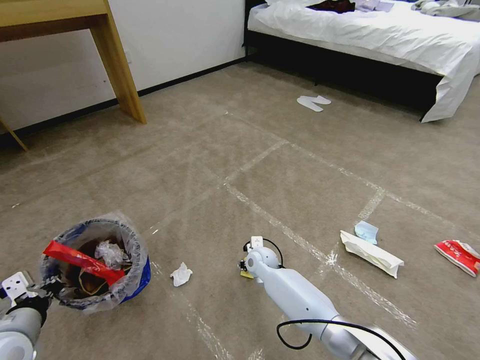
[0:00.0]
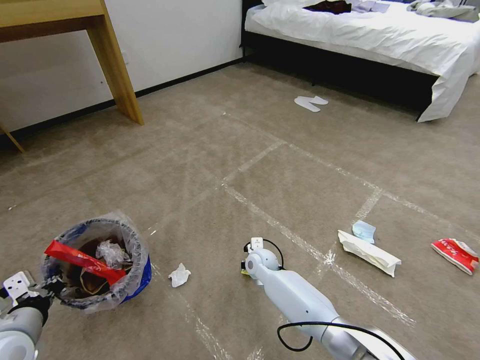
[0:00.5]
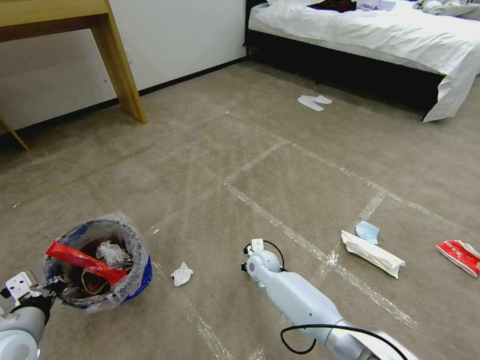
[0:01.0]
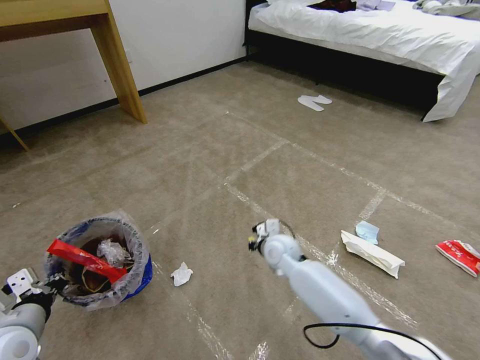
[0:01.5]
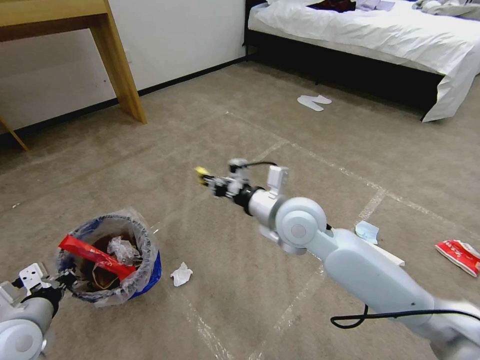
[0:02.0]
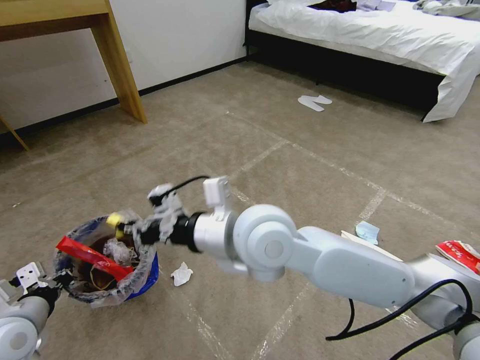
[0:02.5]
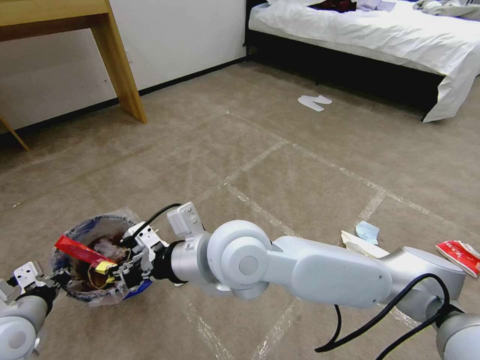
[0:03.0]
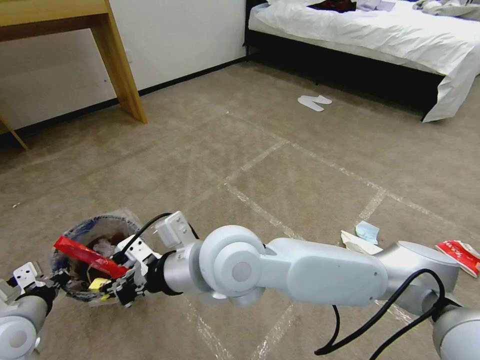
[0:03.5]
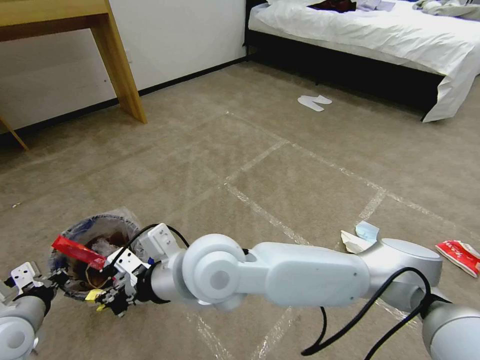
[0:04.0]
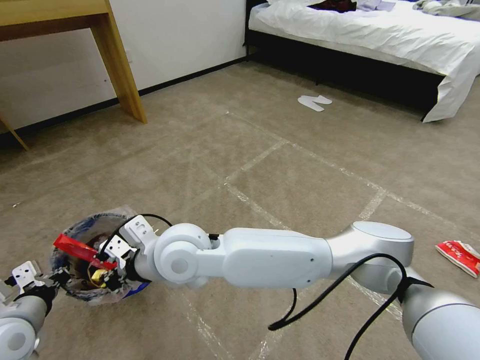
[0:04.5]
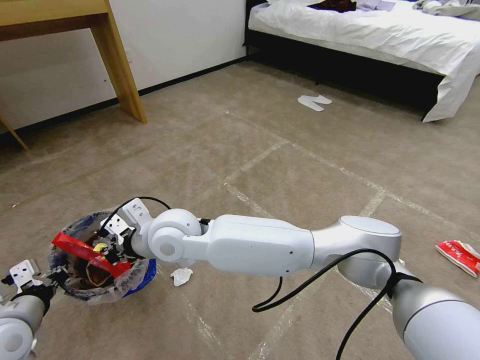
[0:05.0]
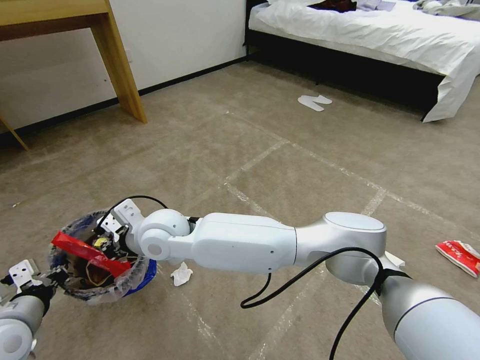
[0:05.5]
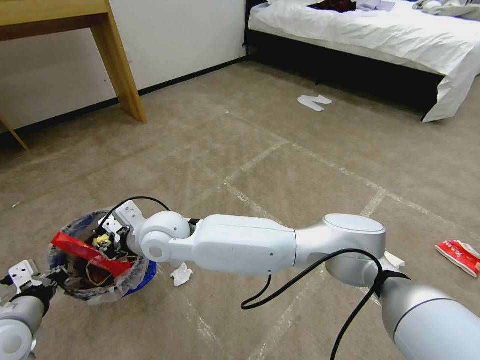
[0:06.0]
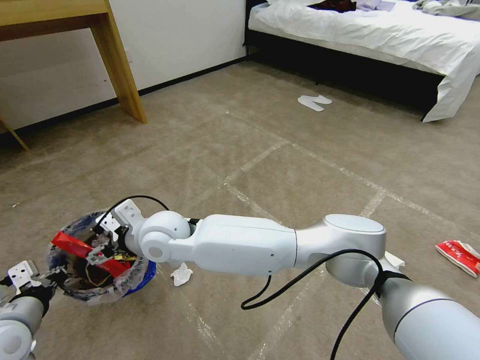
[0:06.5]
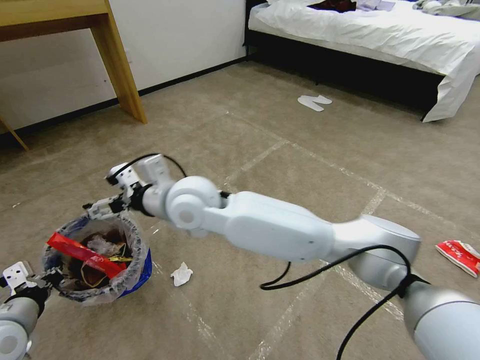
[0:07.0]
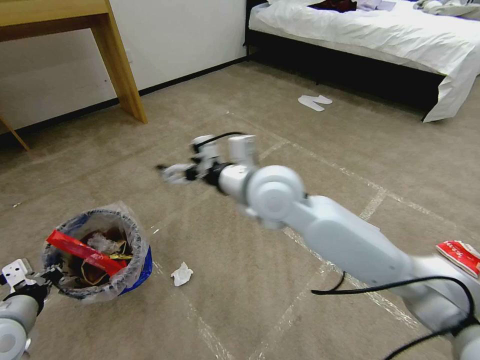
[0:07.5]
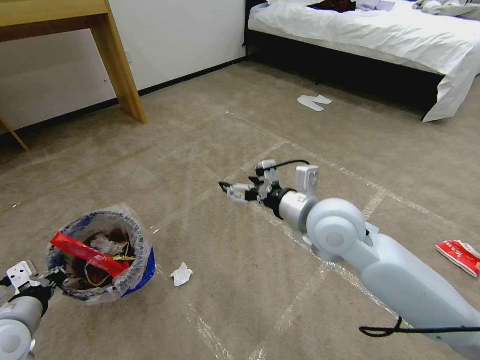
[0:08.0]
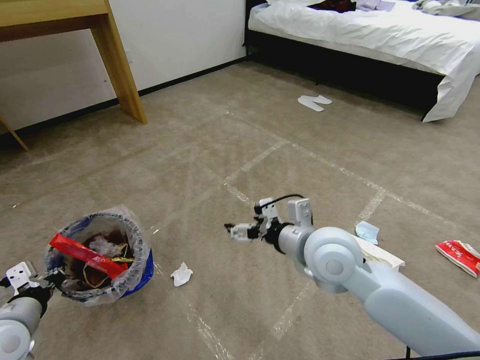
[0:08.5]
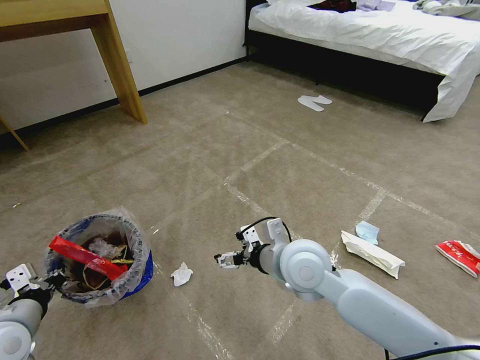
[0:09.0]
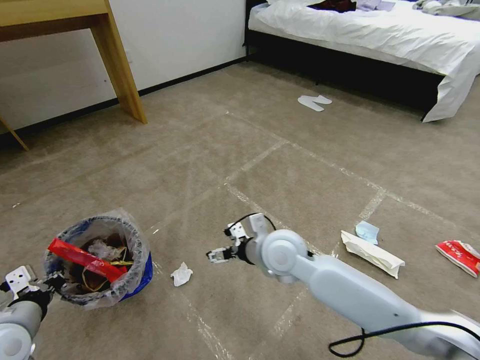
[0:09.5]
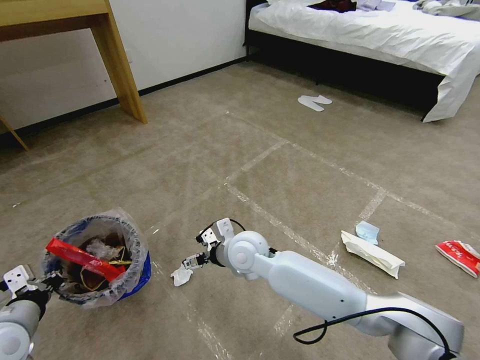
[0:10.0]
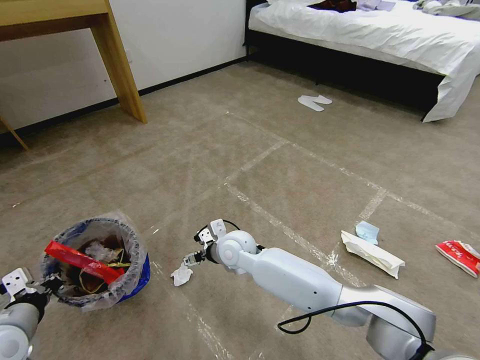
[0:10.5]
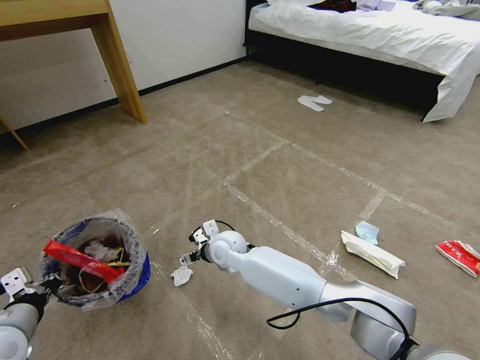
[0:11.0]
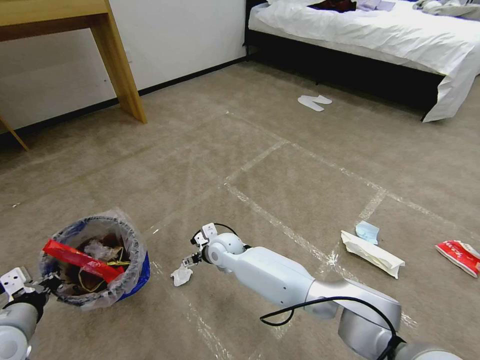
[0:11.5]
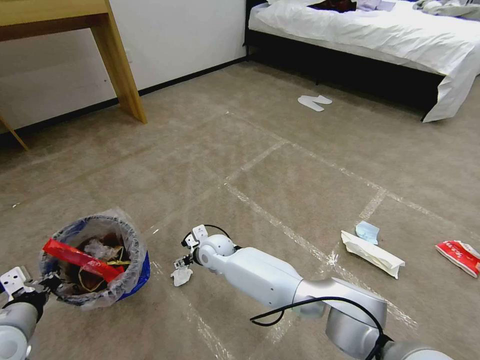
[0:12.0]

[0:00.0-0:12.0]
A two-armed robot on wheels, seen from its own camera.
Task of the whole recording: Pick up the trash bin and place the garbage on the floor into it.
0.0 to 2.0 s: The right gripper moves upward, roughly 30 cm, and closes its fingers.
2.0 to 4.0 s: The right gripper goes some 20 cm to the left and backward.
4.0 to 6.0 s: The right gripper goes about 15 cm to the left, forward and downward, and opens.
6.0 to 8.0 s: The right gripper goes about 30 cm to the right, and opens.
8.0 to 10.0 s: The right gripper goes approximately 20 cm downward and to the left.
10.0 to 12.0 s: The right gripper travels downward, to the left and forward by approximately 15 cm.

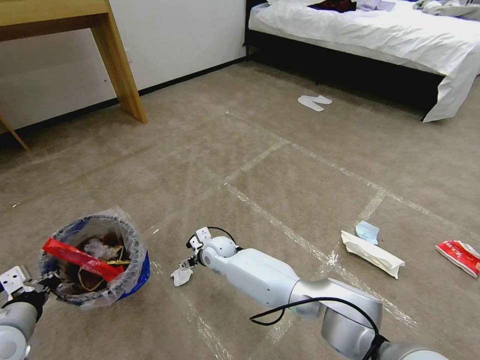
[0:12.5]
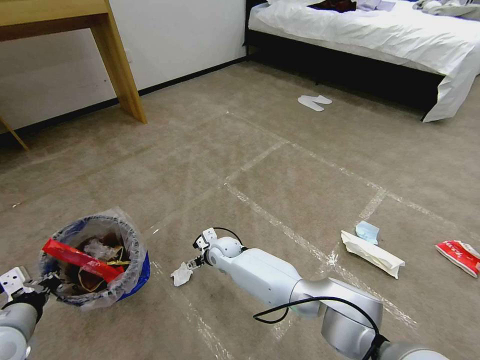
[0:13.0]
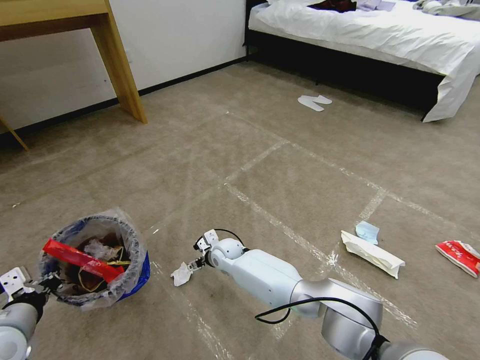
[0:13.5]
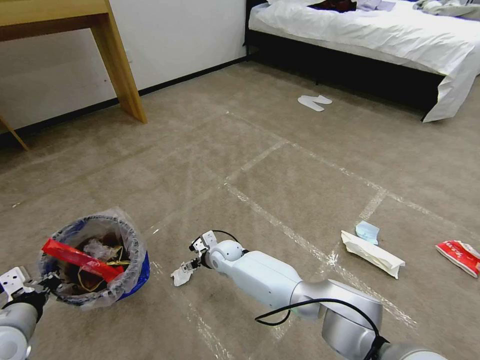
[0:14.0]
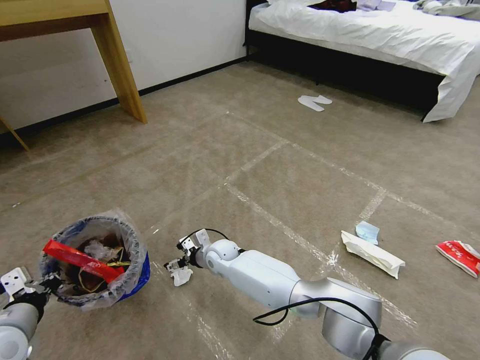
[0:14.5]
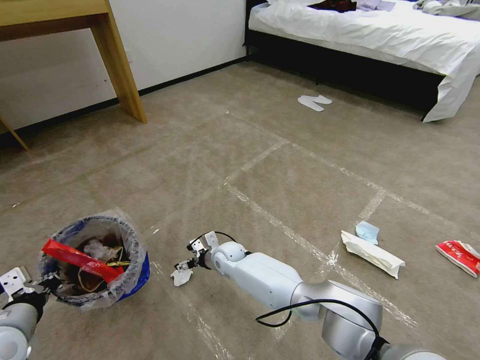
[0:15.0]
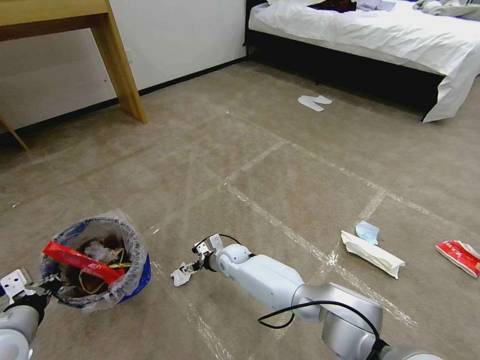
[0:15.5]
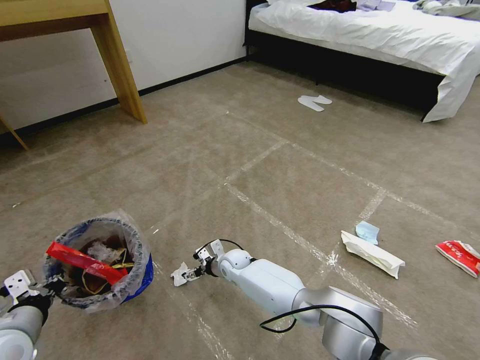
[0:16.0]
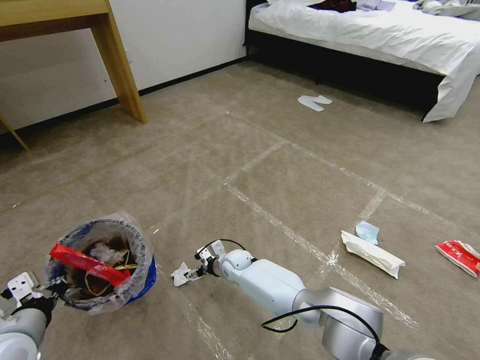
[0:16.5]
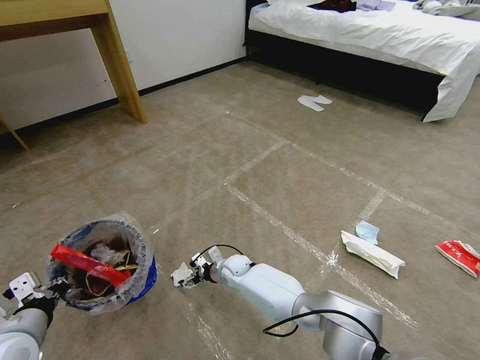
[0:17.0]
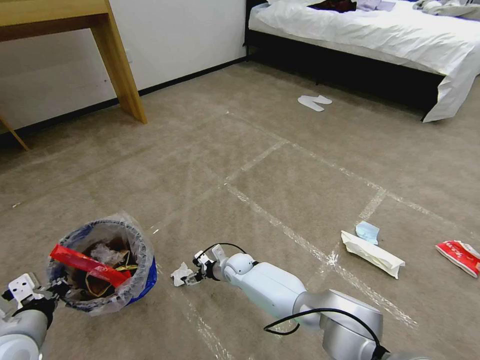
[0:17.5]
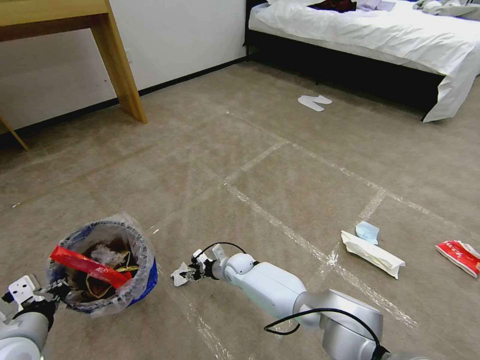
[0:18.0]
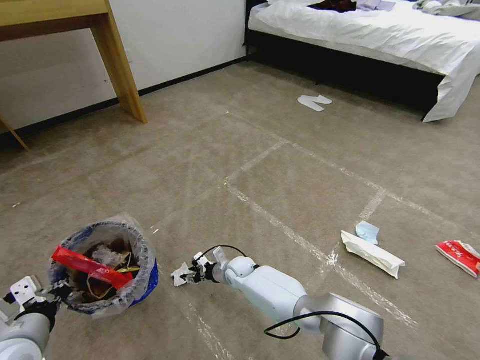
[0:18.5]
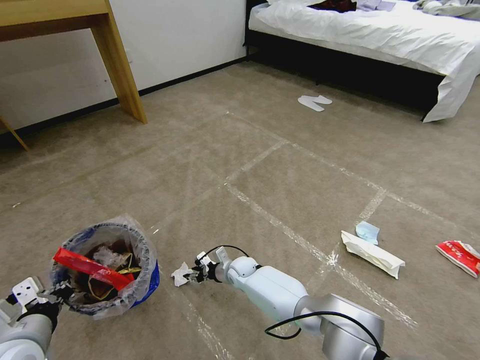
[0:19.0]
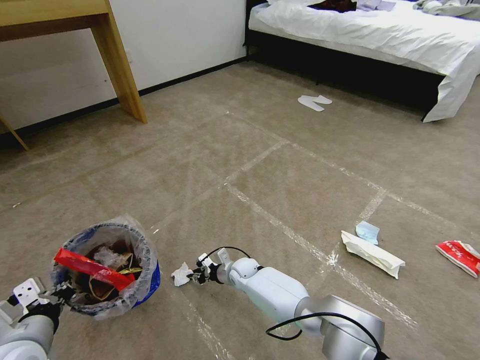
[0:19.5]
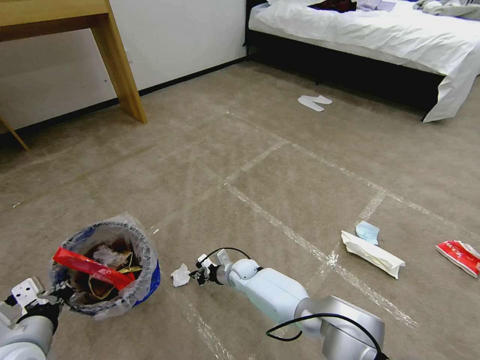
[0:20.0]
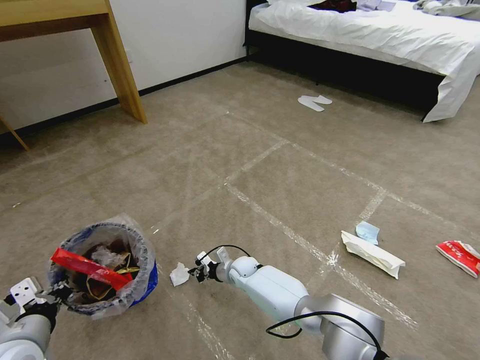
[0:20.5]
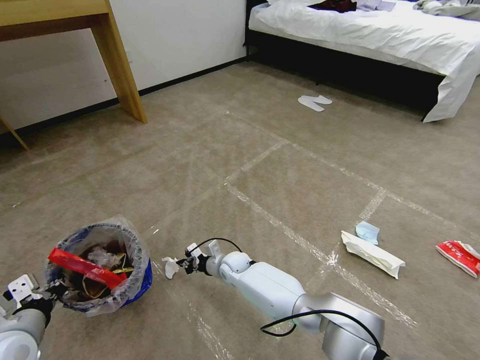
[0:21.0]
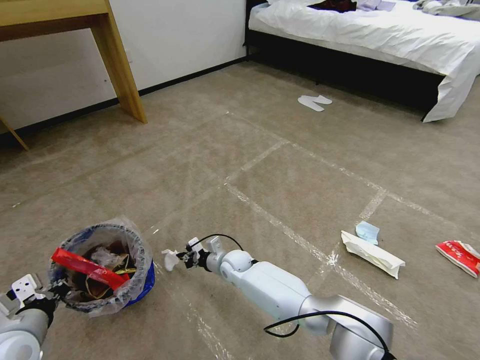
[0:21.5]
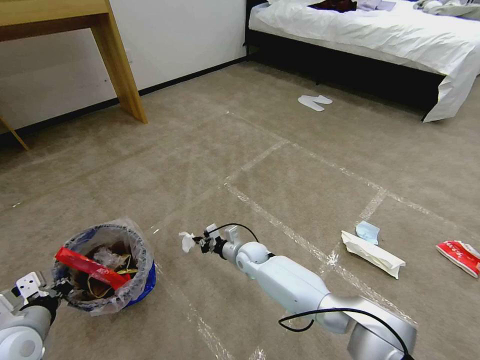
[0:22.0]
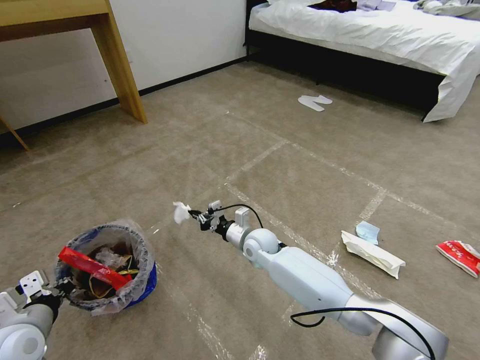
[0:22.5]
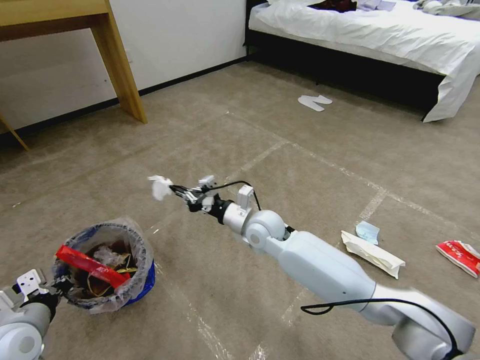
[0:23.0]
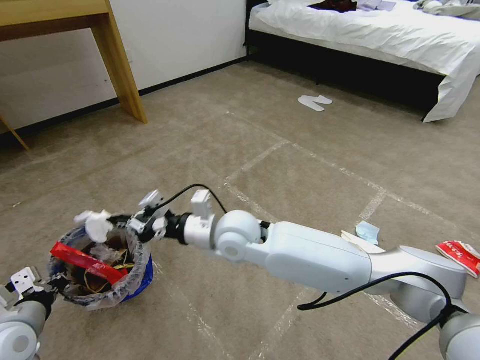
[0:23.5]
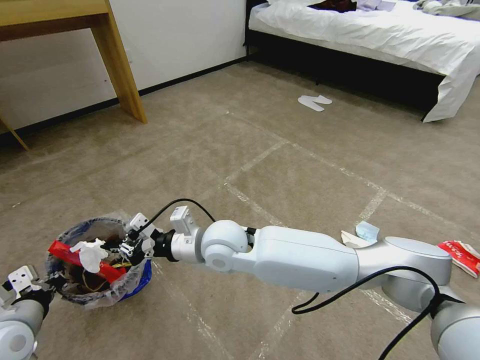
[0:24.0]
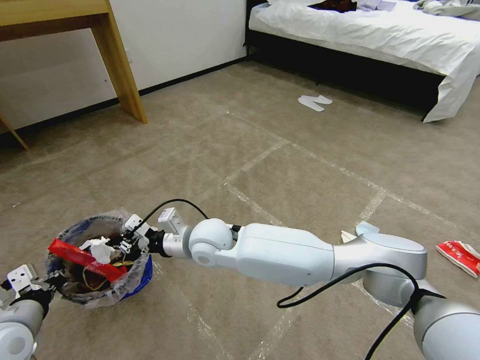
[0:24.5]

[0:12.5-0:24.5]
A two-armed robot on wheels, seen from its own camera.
Task of the whole recording: Pick up the trash bin and place the garbage on the floor into it.
12.5 to 14.5 s: The grippers make only small movements.
14.5 to 16.5 s: The right gripper moves downward, about 5 cm.
16.5 to 18.5 s: The right gripper closes up.
18.5 to 20.5 s: The right gripper closes up.
20.5 to 22.5 s: The right gripper heads upward, covering roughly 15 cm.
22.5 to 24.5 s: The right gripper travels upward, to the left and backward by some 20 cm.

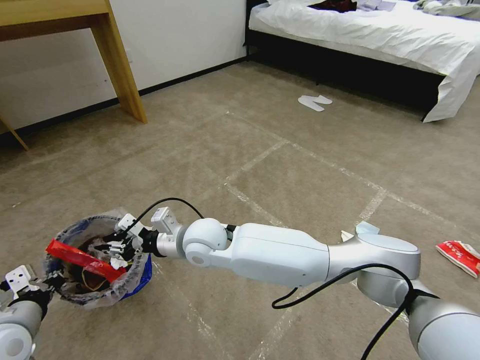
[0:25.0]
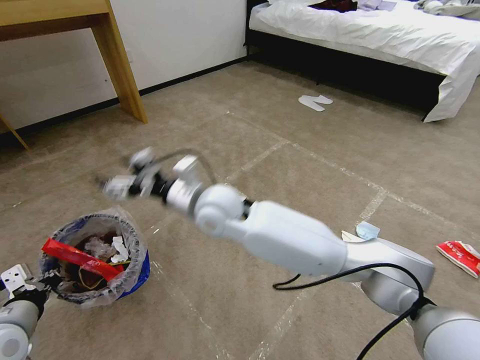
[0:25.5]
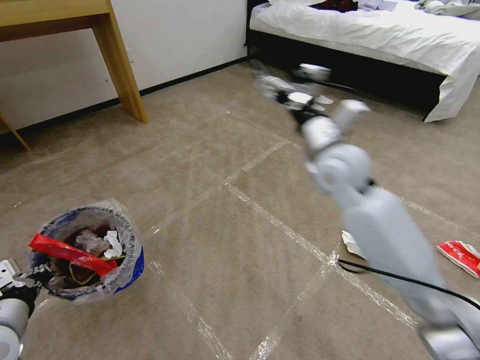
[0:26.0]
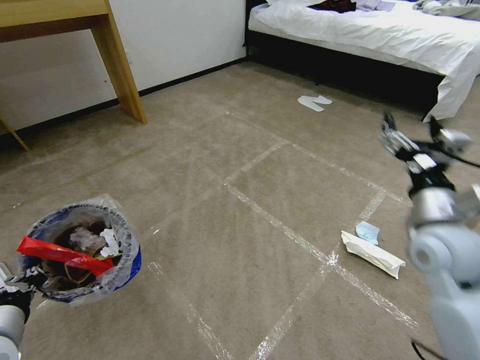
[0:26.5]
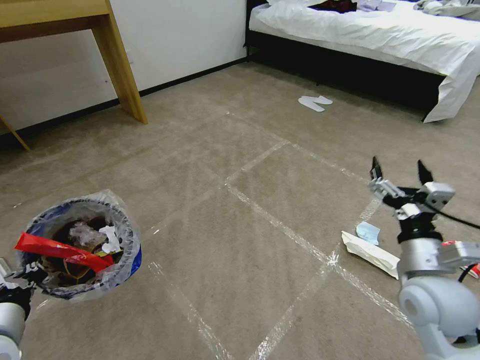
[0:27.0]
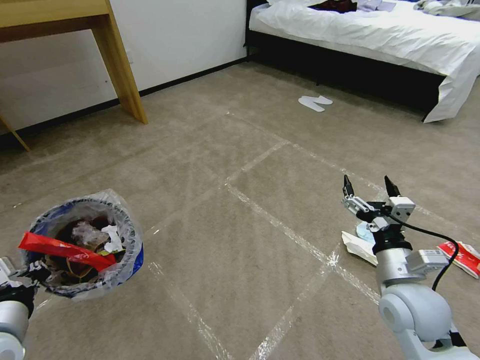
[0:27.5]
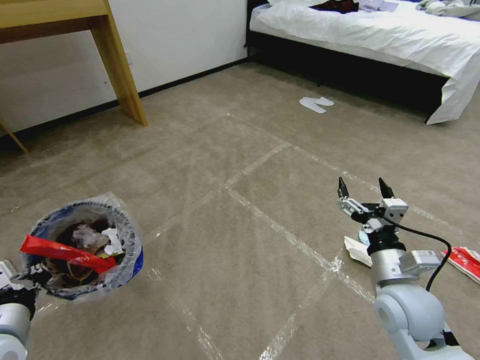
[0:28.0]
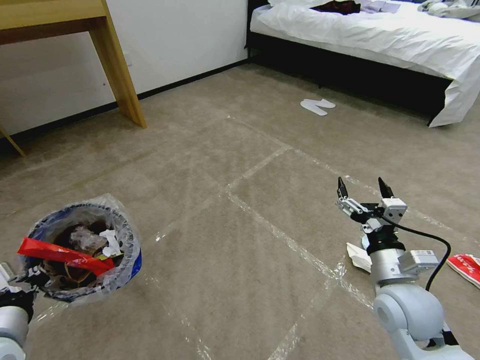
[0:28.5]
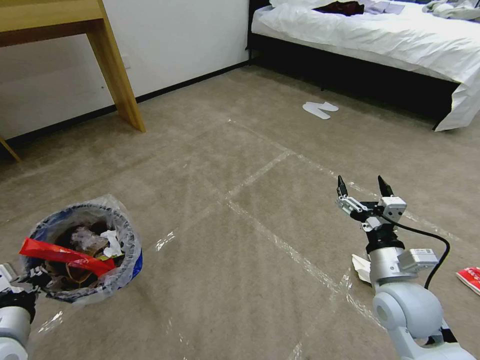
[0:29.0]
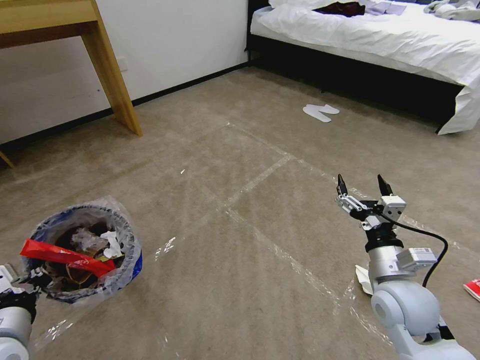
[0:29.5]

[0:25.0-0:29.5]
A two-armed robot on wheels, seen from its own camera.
Task of the whole recording: Pick up the trash bin and place the garbage on the floor into it.
25.0 to 27.0 s: The left gripper ends up some 5 cm from where it was. The right gripper goes about 40 cm to the right, and opens its fingers.
